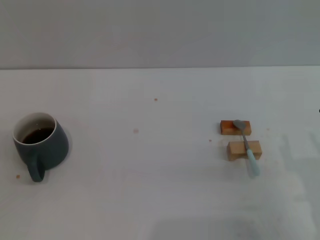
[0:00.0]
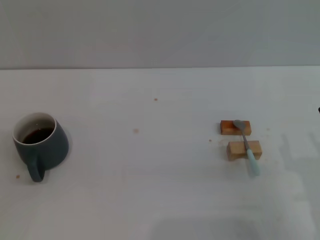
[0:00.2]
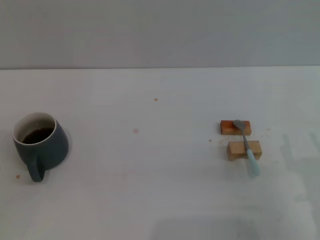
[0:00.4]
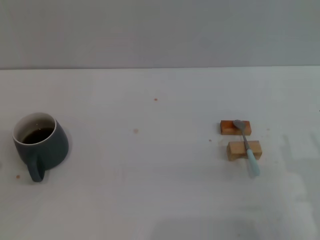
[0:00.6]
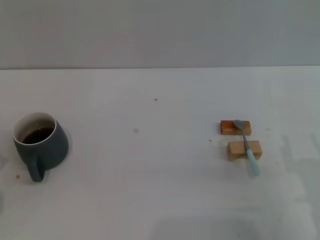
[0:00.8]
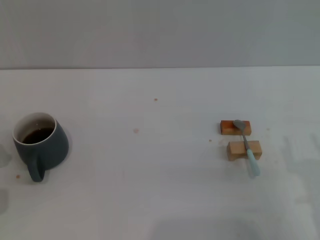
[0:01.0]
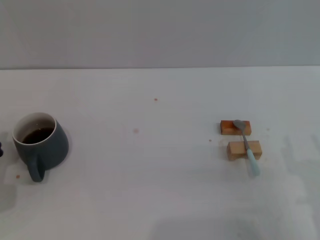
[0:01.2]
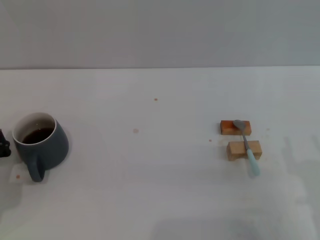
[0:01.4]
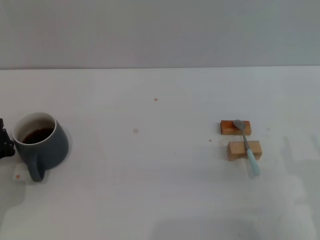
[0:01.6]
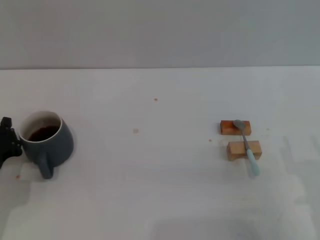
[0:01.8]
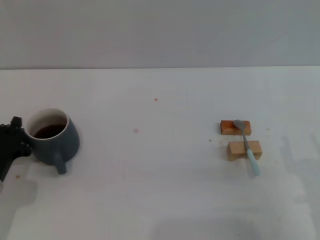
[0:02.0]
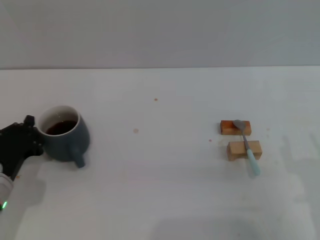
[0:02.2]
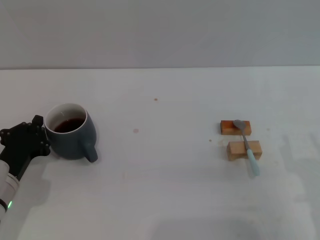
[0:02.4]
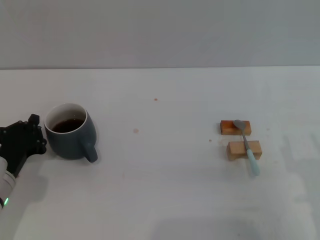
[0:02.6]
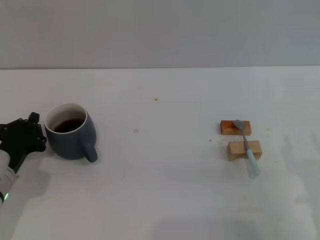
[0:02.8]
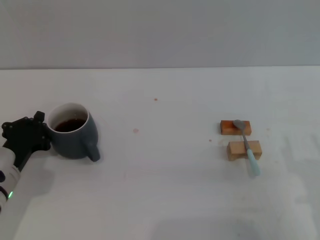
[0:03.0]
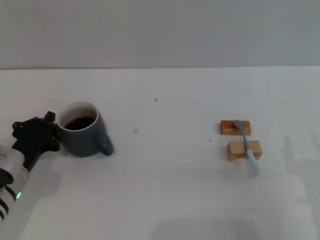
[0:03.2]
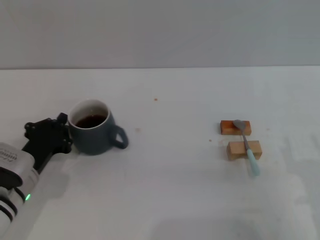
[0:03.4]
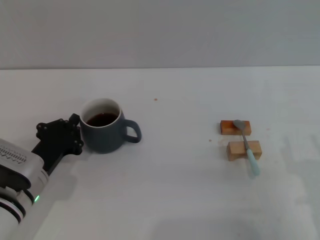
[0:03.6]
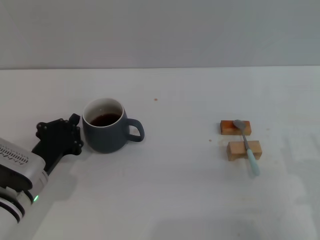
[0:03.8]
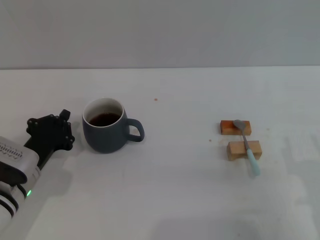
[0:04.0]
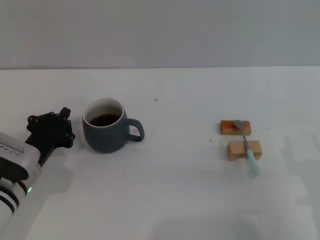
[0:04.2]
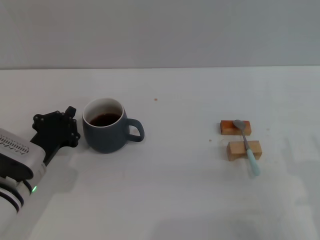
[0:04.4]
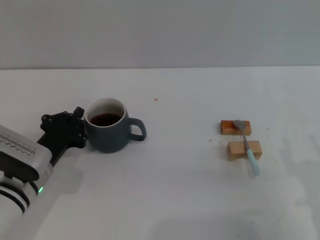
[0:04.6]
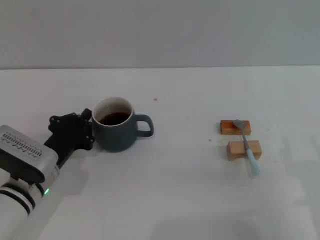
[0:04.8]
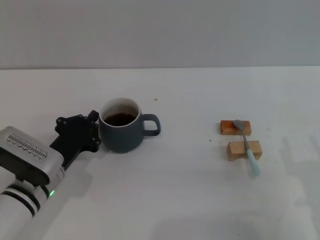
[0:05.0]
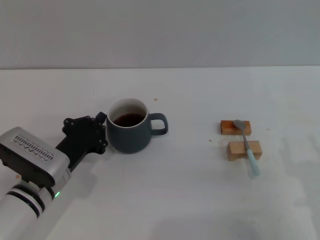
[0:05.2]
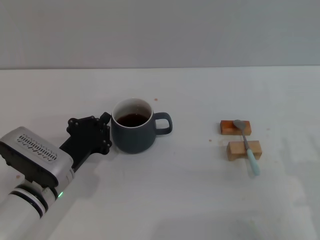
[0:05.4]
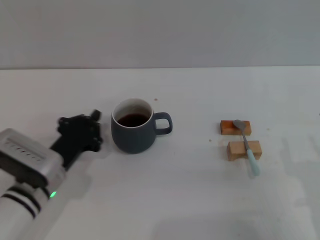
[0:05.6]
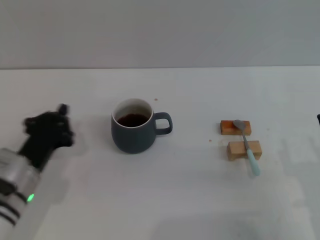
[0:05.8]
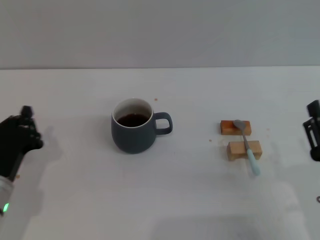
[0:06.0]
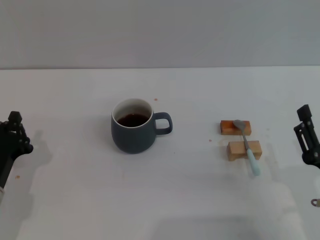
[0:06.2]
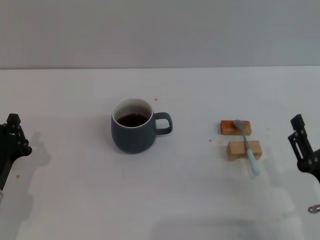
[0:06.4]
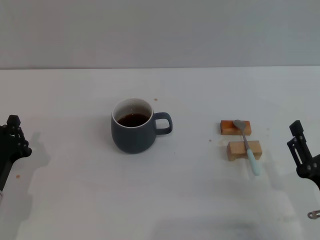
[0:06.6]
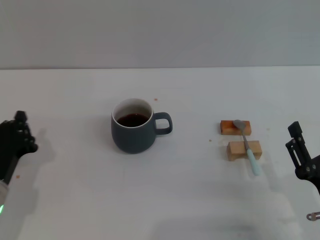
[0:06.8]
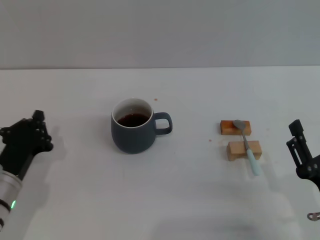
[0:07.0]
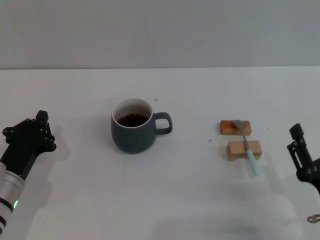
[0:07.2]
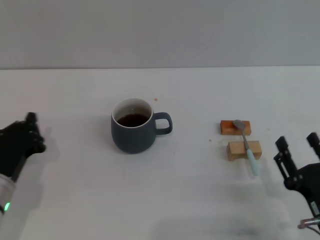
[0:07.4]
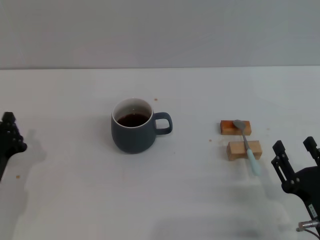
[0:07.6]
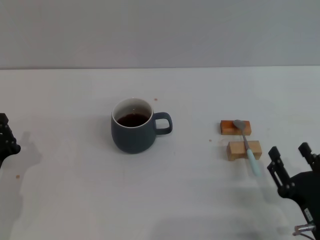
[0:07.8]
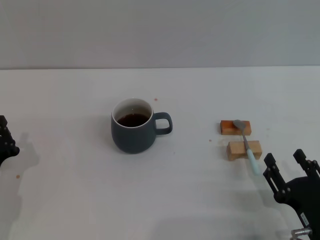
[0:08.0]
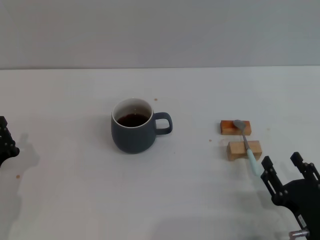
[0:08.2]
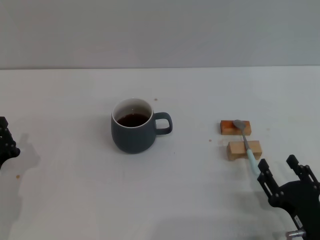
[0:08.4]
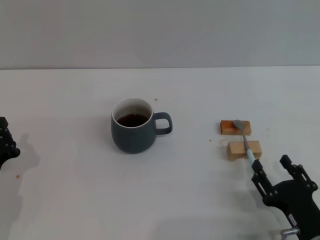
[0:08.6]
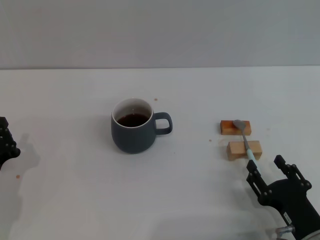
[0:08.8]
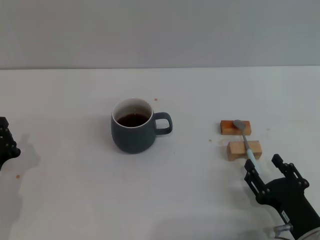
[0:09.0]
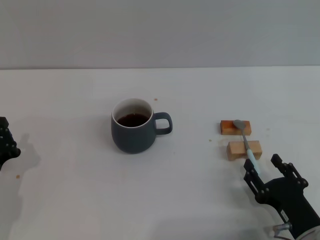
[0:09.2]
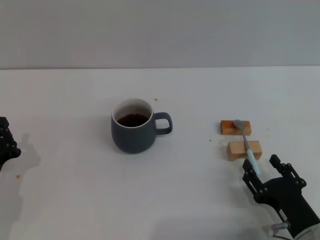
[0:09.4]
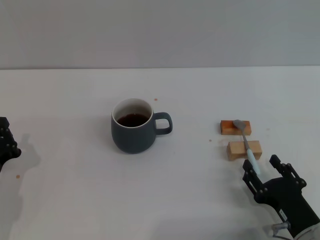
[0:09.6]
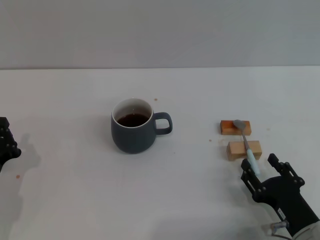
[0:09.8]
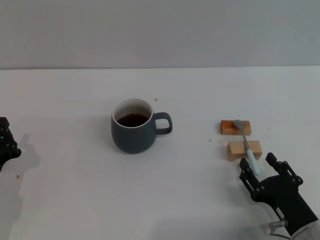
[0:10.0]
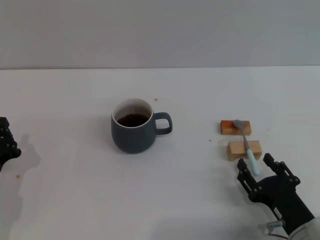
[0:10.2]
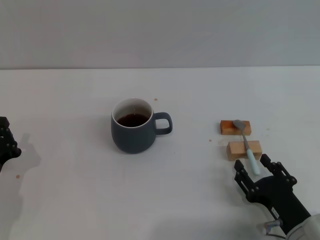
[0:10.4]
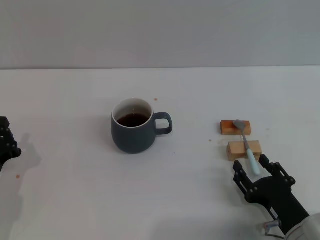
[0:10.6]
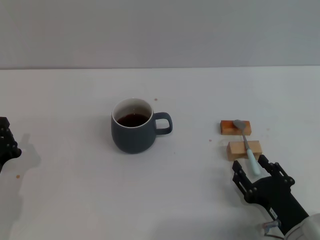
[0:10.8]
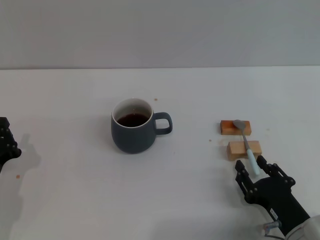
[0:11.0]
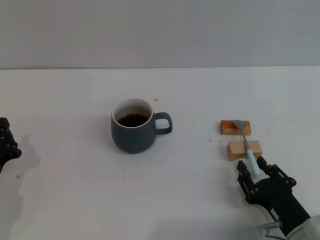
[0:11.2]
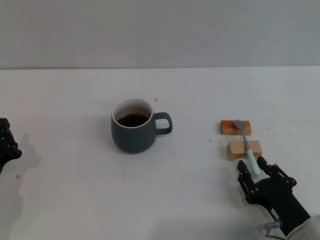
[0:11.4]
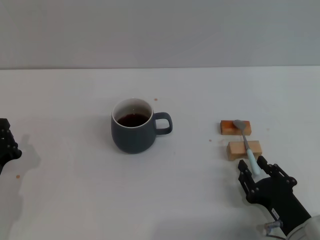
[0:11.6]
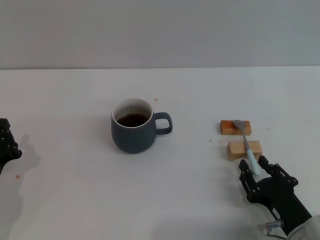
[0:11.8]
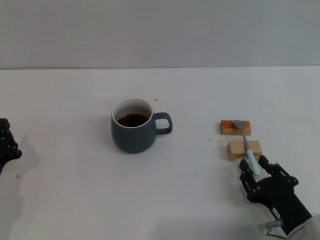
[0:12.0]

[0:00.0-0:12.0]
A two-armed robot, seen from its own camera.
Task of the whole recording: Move the grey cup to the center, lift the blue spoon, stir it three times in the cup, and put the spoon into the cup.
Step, 0:00.0 to 0:05.6: Move the cup with coffee to the center of view with the left gripper.
0:00.0 to 0:01.6: The left gripper goes approximately 5 cm forward.
0:01.6 to 0:03.0: The grippers stay close to where they were, moving slightly.
0:03.0 to 0:04.4: The grippers stay close to where they were, moving slightly.
0:04.4 to 0:06.0: The left gripper shifts by roughly 5 cm.
0:06.0 to 0:07.6: There are only small adjustments of the grippers.
0:07.6 to 0:09.0: The grippers make only small movements.
0:09.0 to 0:10.4: Neither gripper changes place.
0:10.4 to 0:12.0: The two grippers keep their place.

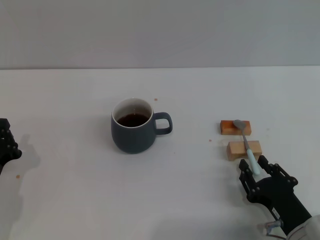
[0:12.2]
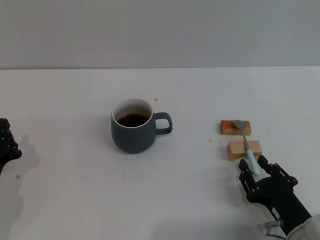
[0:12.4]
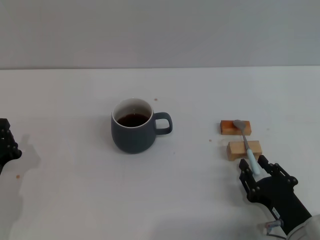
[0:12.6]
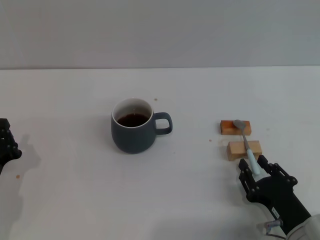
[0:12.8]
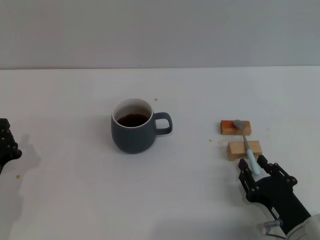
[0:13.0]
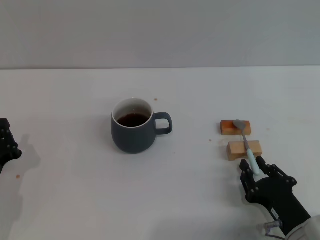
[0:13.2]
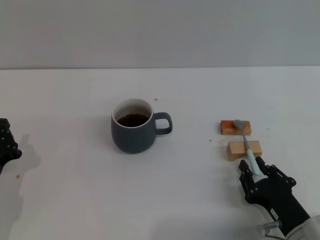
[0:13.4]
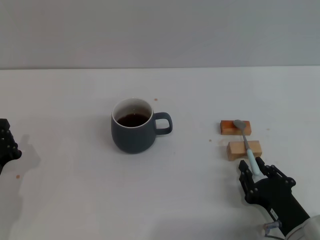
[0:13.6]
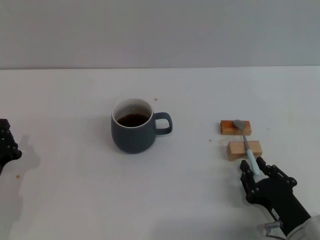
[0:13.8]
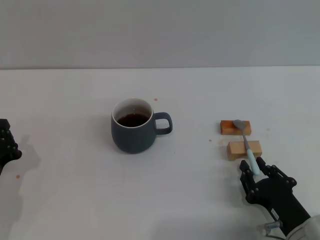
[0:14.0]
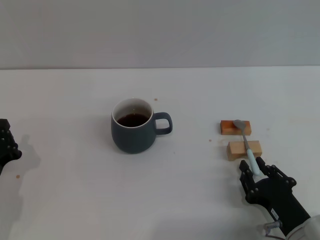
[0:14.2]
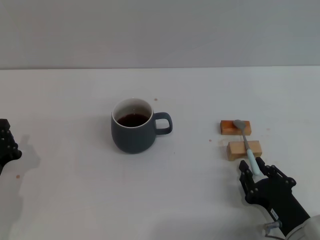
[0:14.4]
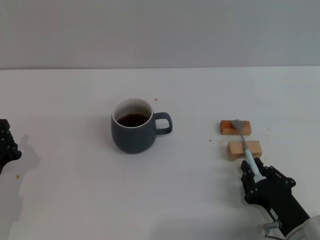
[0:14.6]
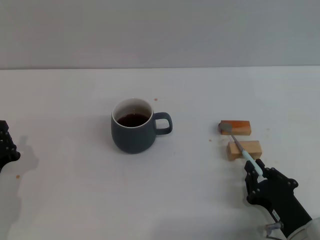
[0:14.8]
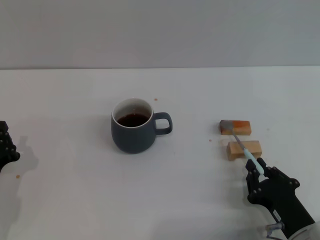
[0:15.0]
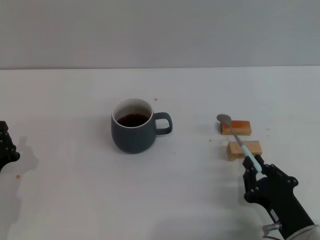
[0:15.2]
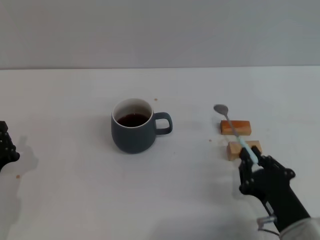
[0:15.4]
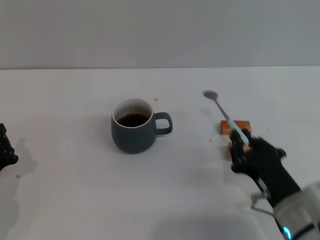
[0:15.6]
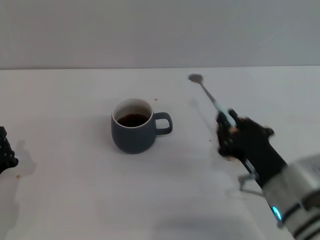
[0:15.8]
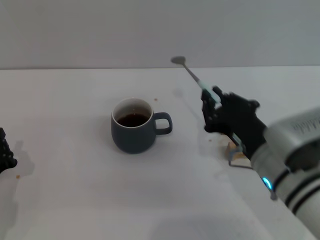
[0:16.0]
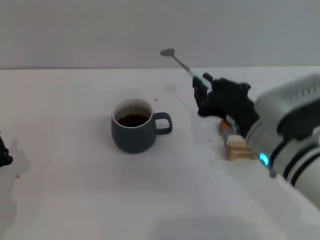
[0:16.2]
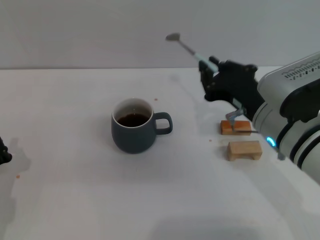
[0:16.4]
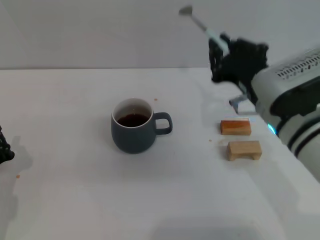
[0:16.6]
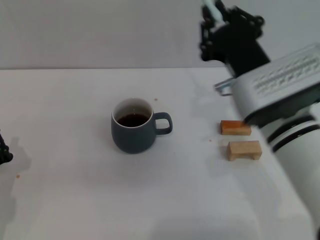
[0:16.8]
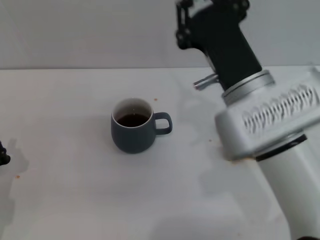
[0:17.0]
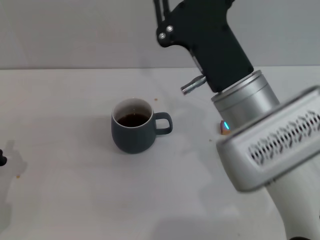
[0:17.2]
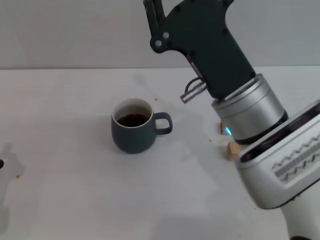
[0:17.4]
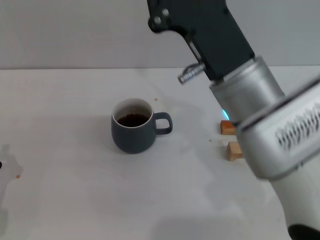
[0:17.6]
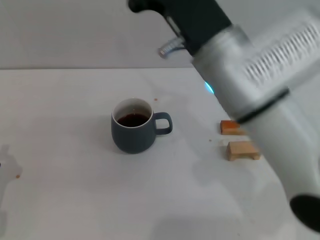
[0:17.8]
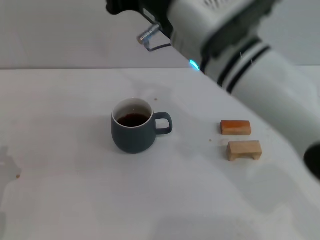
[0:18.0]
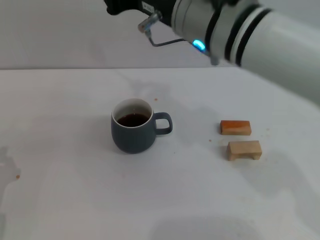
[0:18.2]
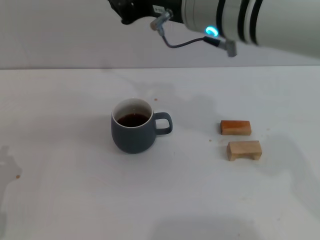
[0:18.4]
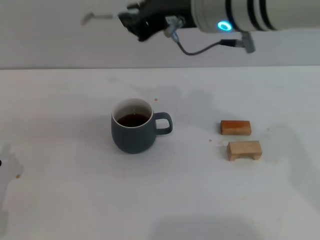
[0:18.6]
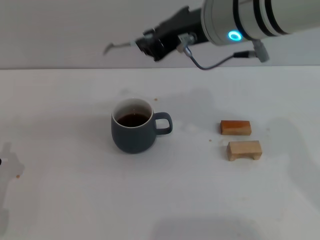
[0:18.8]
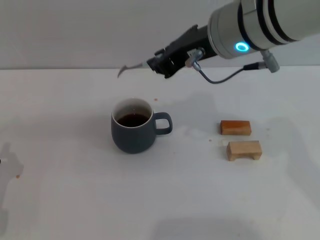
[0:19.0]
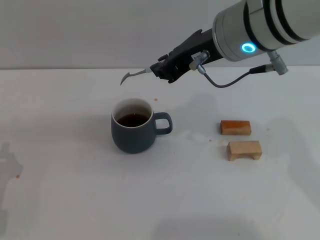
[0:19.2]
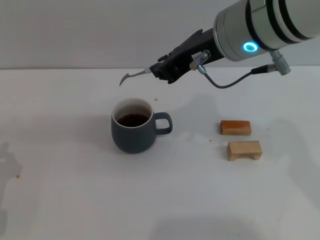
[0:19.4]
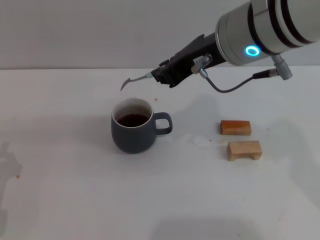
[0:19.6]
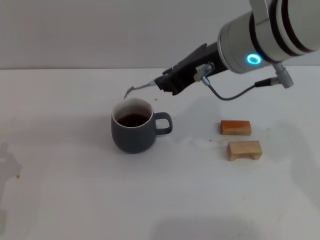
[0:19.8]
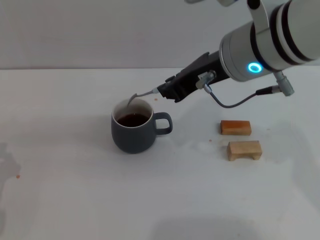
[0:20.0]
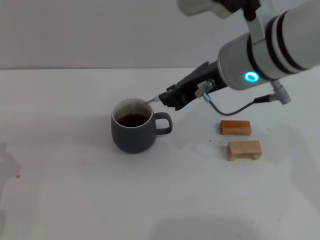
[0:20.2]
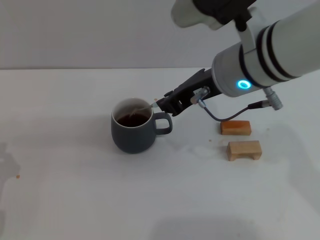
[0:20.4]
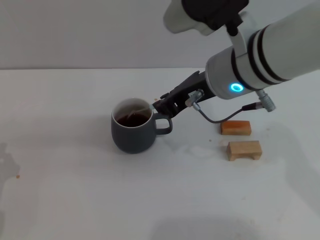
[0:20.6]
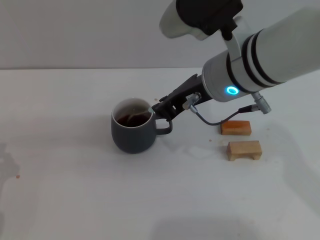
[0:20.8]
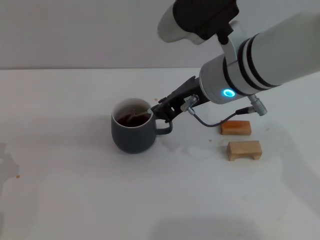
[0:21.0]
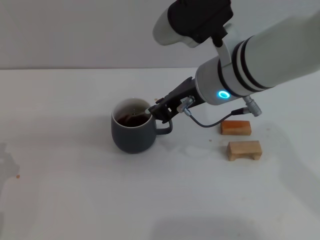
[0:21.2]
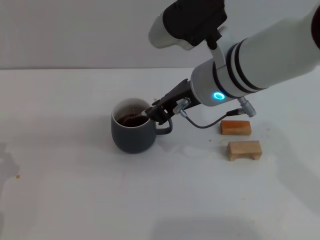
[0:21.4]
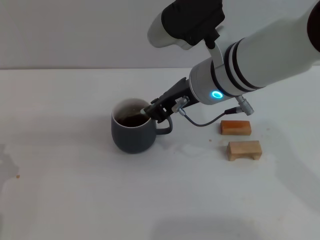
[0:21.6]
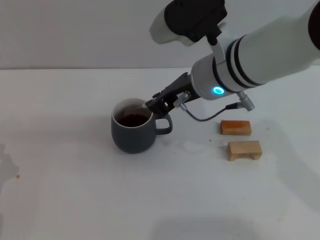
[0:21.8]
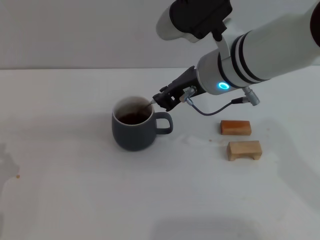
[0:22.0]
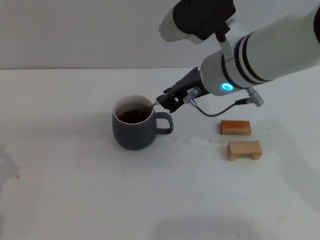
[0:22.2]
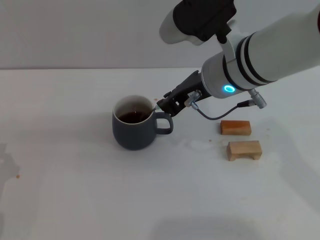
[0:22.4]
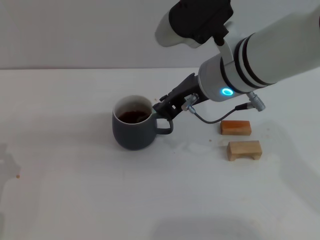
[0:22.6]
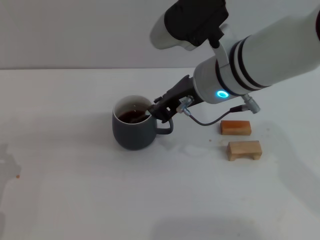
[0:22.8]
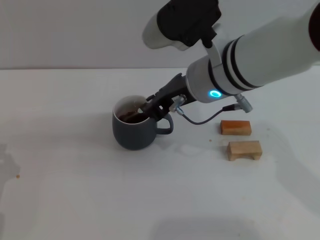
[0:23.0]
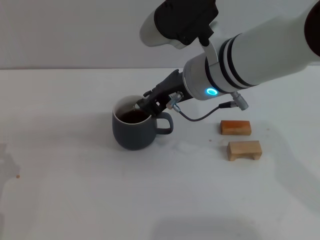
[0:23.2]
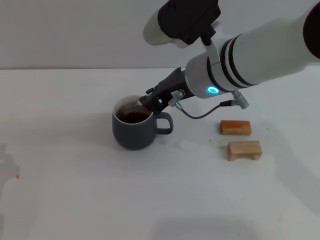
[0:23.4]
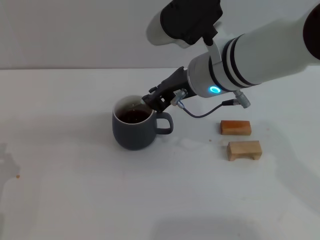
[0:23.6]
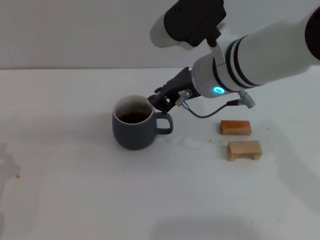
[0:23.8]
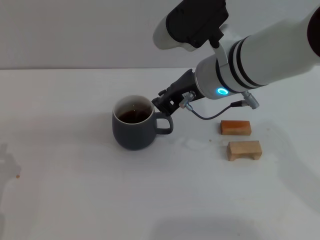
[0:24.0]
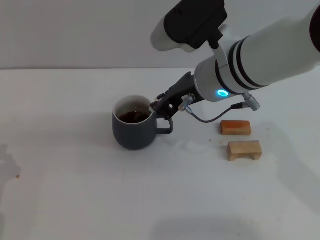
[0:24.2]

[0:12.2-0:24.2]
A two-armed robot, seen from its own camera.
Task of the whole recording: Move the grey cup to the center, lift the blue spoon, stir it three times in the cup, and put the spoon into the cup.
Step, 0:12.2 to 0:15.8: Pick up the spoon with the right gripper.
0:12.2 to 0:13.8: The two grippers keep their place.
0:13.8 to 0:15.2: The grippers make only small movements.
0:15.2 to 0:16.6: The right gripper is displaced upward and forward by about 20 cm.
0:16.6 to 0:18.2: The right gripper shifts roughly 15 cm upward and to the left.
0:19.8 to 0:21.2: The right gripper heads downward, covering roughly 5 cm.
0:21.2 to 0:24.2: The grippers make only small movements.
